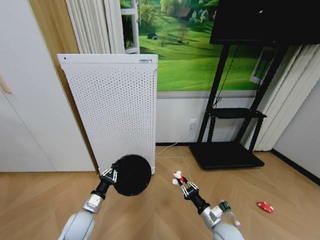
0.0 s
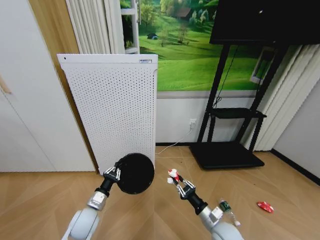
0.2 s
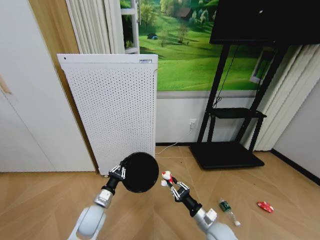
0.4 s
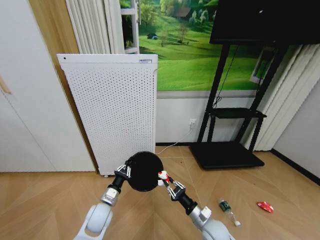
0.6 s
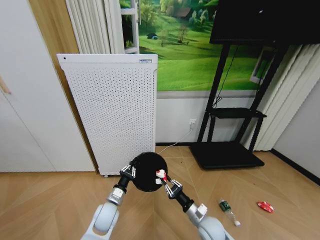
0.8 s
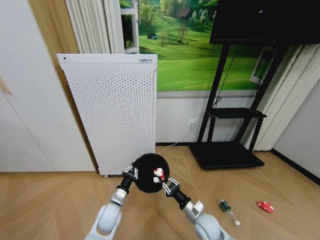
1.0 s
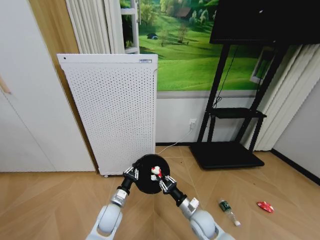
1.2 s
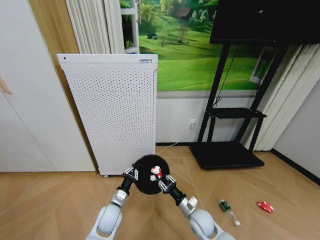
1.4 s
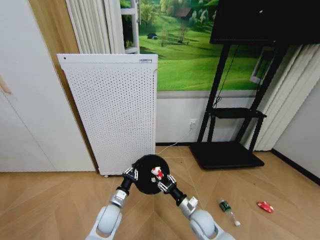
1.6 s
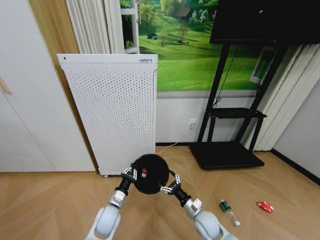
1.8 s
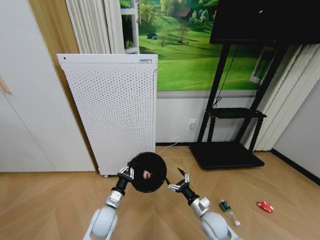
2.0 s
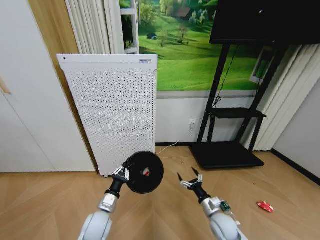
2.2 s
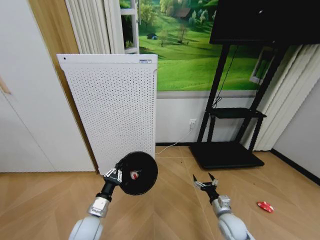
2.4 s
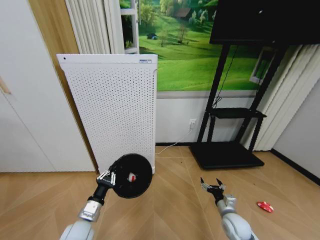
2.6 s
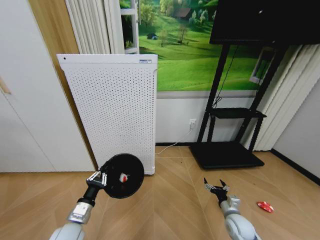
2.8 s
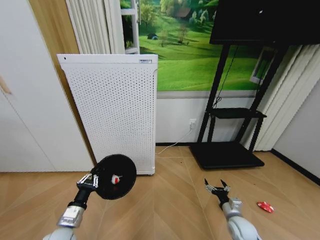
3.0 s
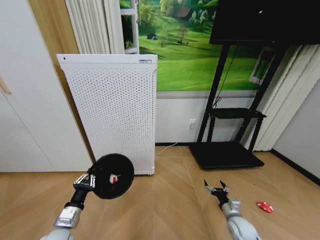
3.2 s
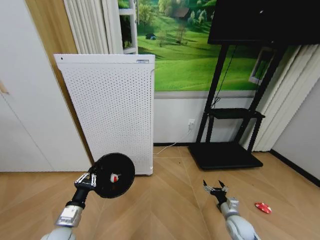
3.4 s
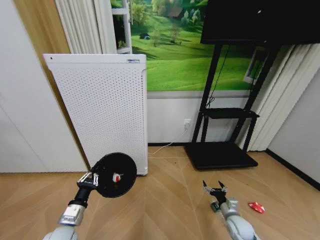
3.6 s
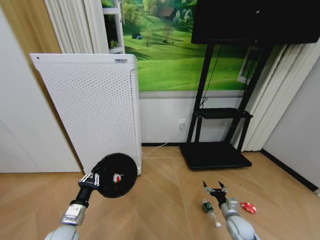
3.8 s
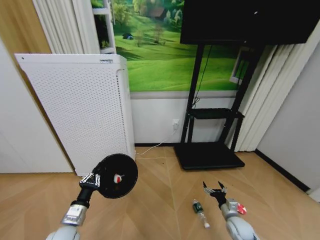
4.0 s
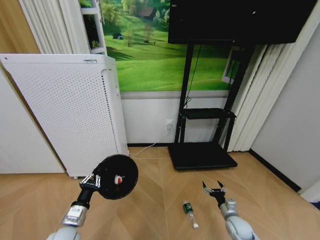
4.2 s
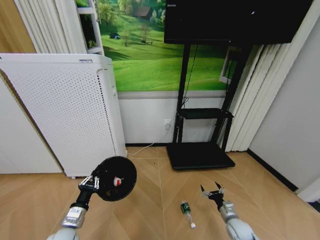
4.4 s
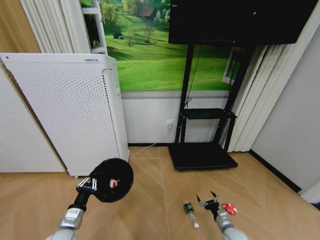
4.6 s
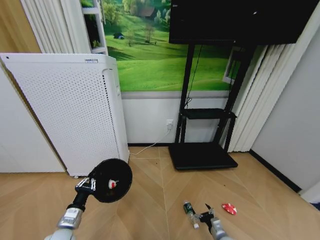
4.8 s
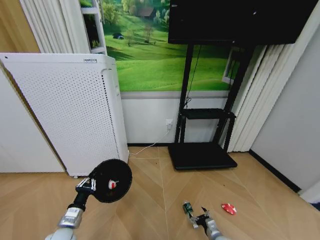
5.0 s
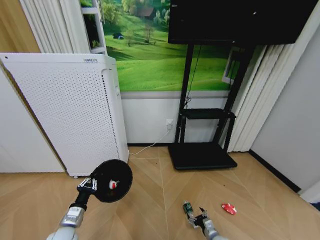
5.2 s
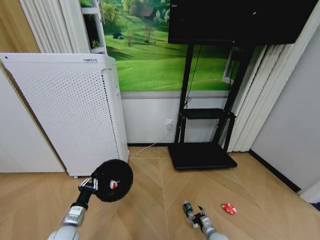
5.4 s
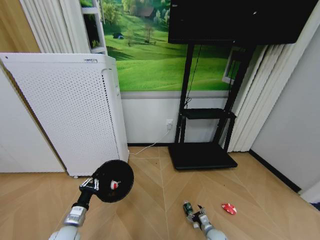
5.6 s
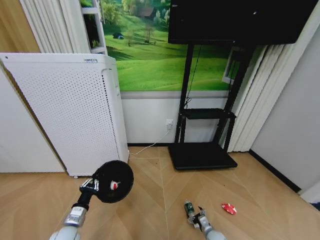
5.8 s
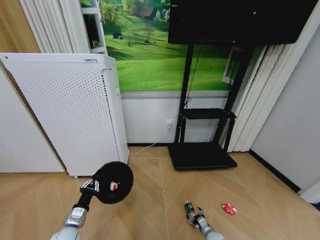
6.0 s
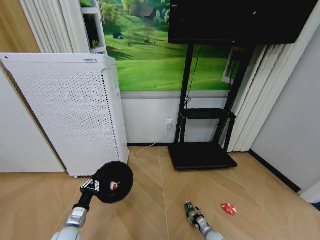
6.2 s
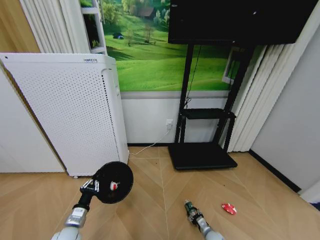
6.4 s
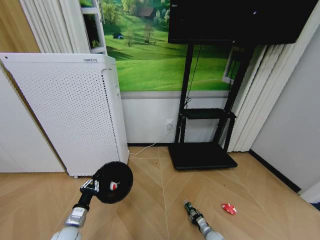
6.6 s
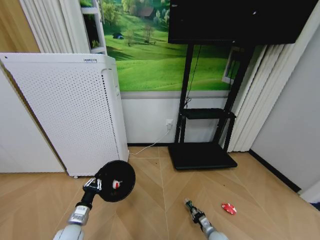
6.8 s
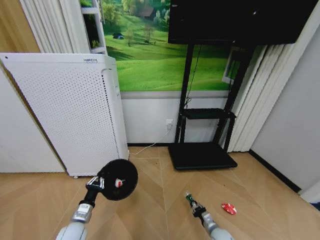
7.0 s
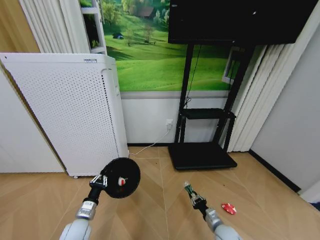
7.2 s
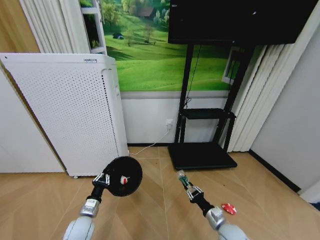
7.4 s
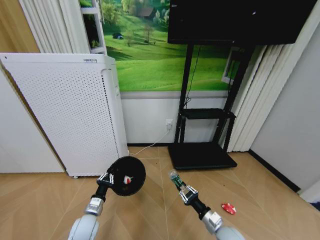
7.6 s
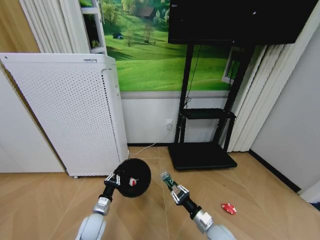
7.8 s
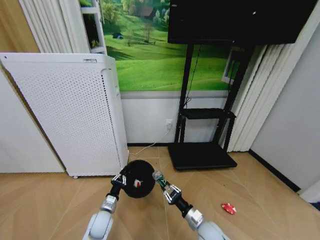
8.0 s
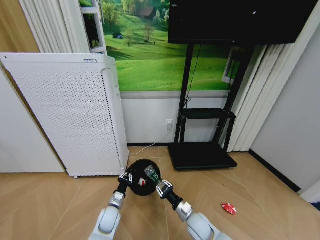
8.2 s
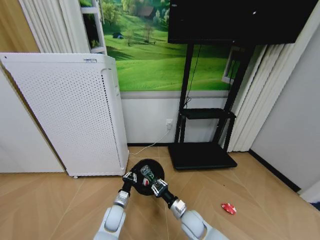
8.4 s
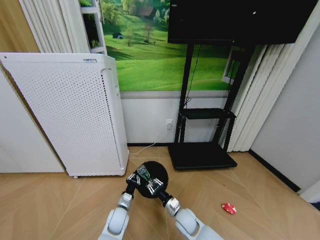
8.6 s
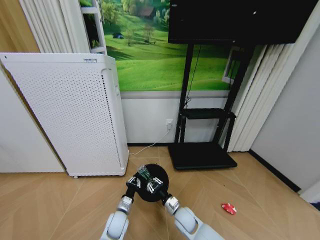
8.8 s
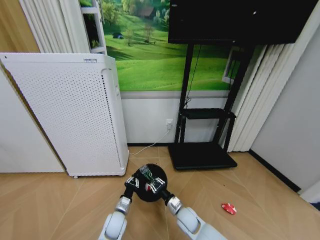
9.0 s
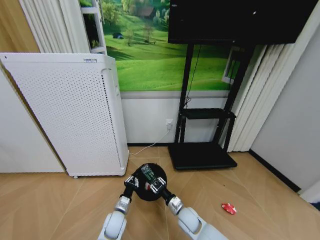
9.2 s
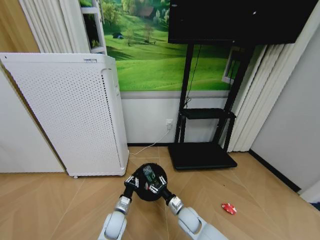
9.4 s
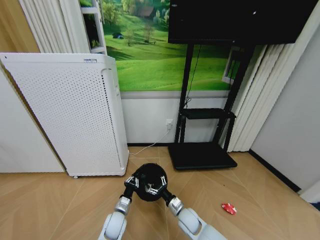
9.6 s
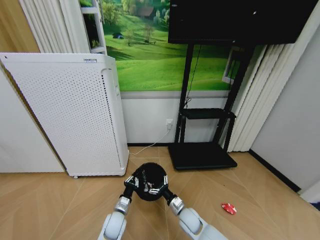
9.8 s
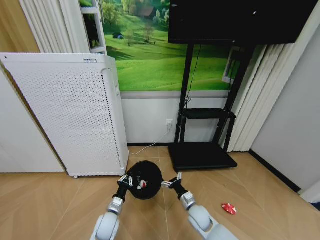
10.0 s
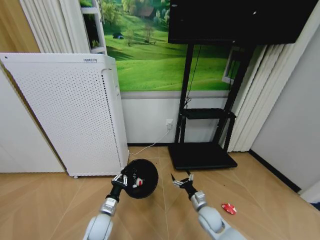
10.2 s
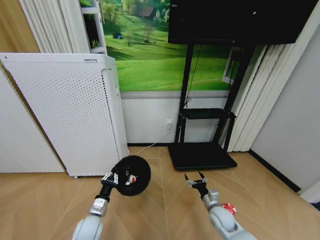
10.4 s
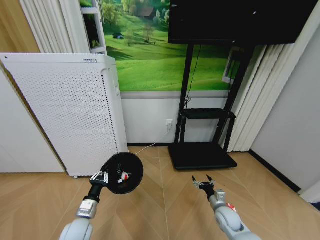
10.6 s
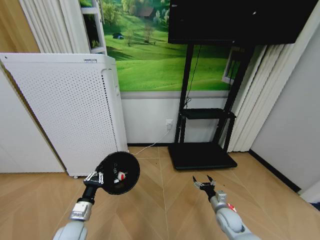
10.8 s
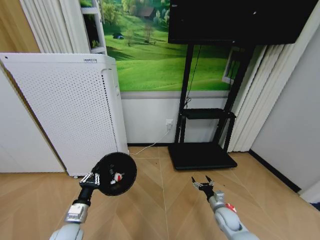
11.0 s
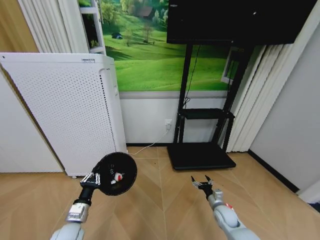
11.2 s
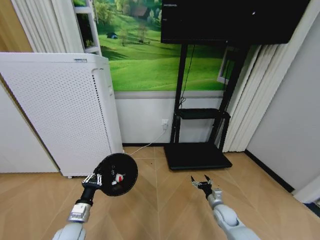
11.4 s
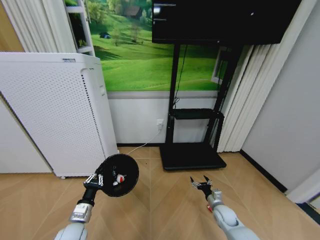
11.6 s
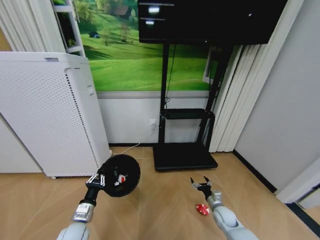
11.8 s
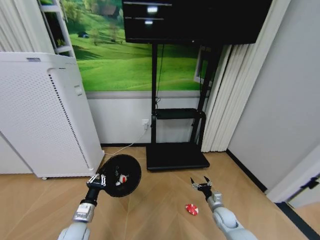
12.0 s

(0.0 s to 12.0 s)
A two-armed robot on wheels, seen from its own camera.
Task of the whole recording: Pick up the trash bin and place the garbage on the floor into it.
0.0 s - 1.6 s: The left gripper heads to the right, covering about 10 cm. Meanwhile the right gripper heads to the left and forward, covering about 10 cm.
1.6 s - 3.0 s: The right gripper heads to the right, covering some 15 cm, and opens its fingers. The left gripper heads to the left, backward and upward, covering roughly 15 cm.
3.0 s - 4.4 s: The right gripper travels downward by approximately 5 cm.
4.4 s - 6.0 s: The right gripper moves downward and to the left, roughly 15 cm.
6.0 s - 7.6 s: The right gripper moves upward, about 20 cm, and closes up; the left gripper shifts roughly 5 cm to the right.
7.6 s - 9.0 s: The left gripper goes some 10 cm to the right and downward. The right gripper moves to the left and forward, about 15 cm.
9.0 s - 10.4 s: The right gripper moves to the right, roughly 15 cm, and opens, while the left gripper goes some 10 cm to the left and upward.
10.4 s - 12.0 s: The right gripper goes about 5 cm downward.

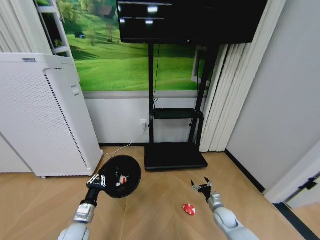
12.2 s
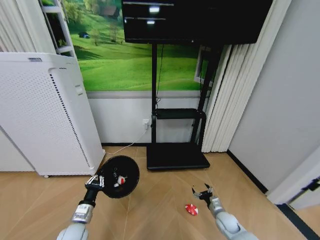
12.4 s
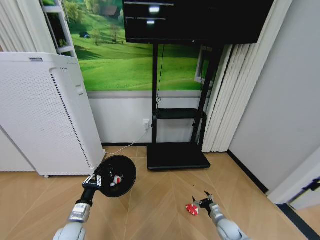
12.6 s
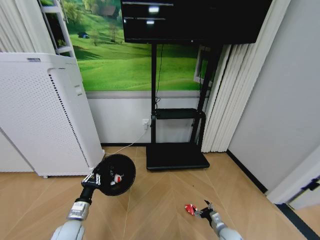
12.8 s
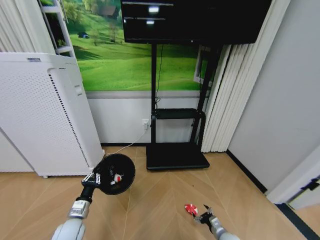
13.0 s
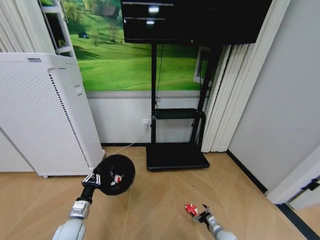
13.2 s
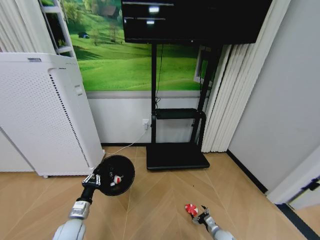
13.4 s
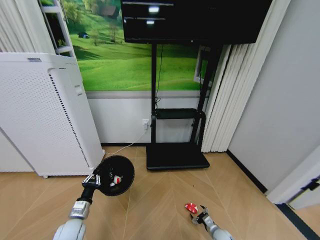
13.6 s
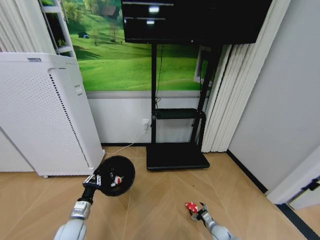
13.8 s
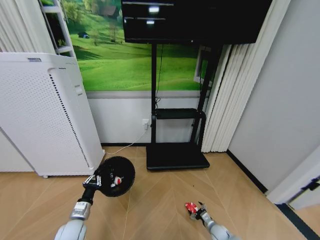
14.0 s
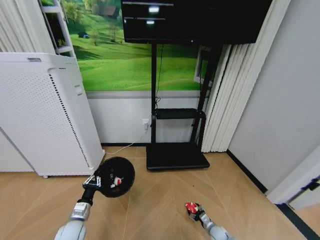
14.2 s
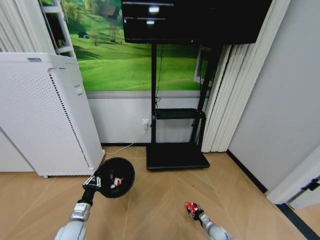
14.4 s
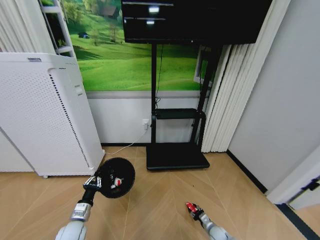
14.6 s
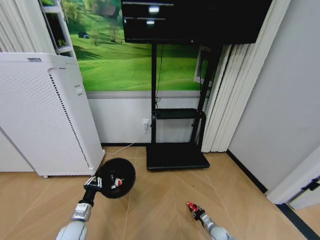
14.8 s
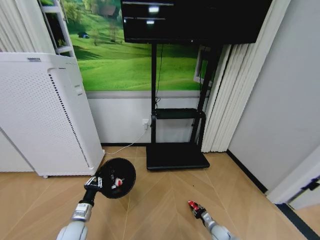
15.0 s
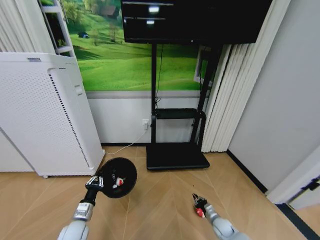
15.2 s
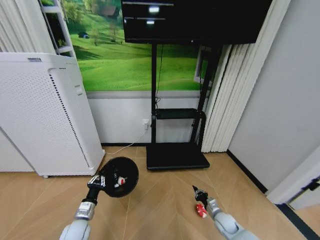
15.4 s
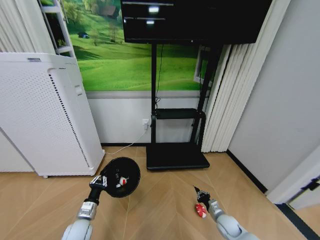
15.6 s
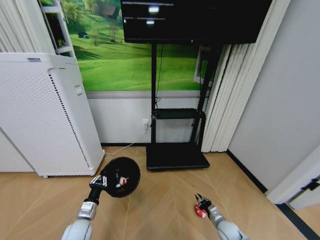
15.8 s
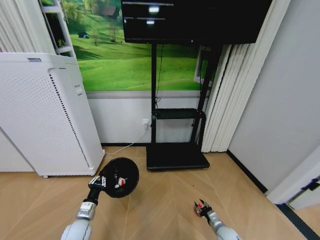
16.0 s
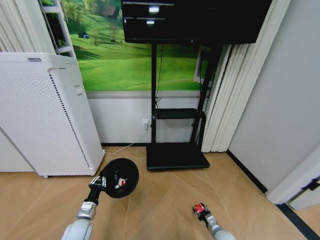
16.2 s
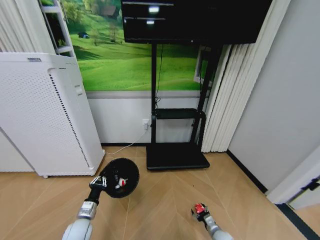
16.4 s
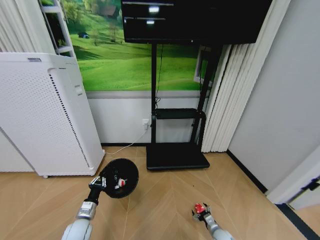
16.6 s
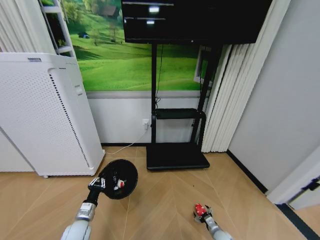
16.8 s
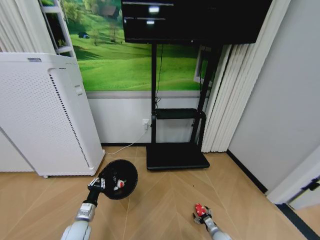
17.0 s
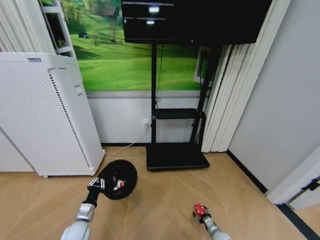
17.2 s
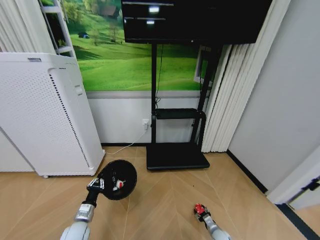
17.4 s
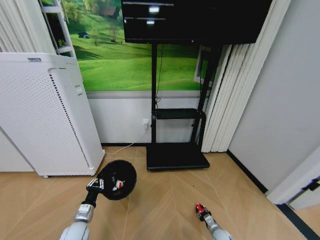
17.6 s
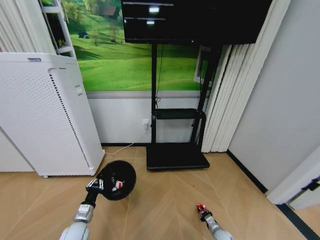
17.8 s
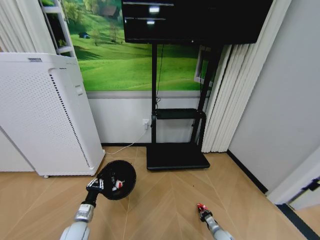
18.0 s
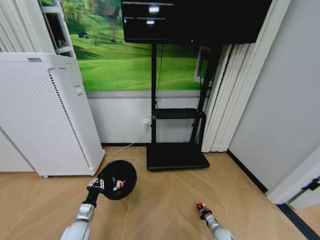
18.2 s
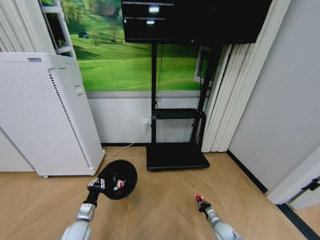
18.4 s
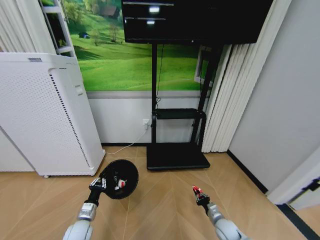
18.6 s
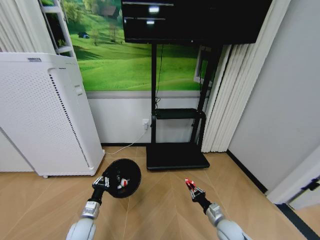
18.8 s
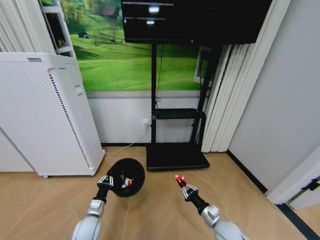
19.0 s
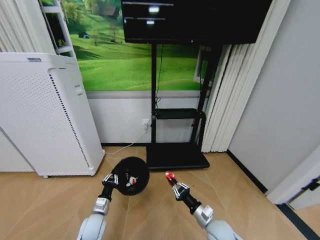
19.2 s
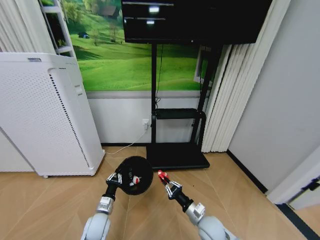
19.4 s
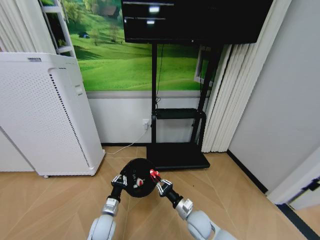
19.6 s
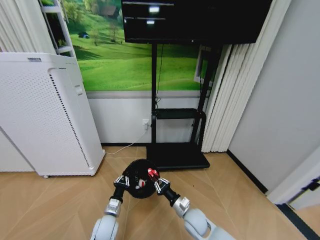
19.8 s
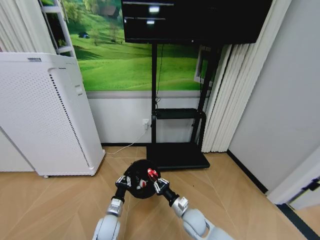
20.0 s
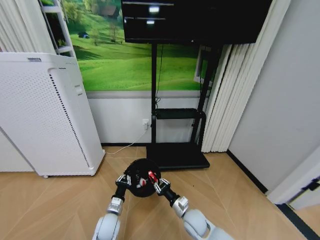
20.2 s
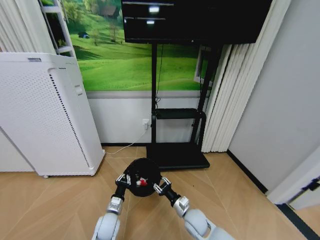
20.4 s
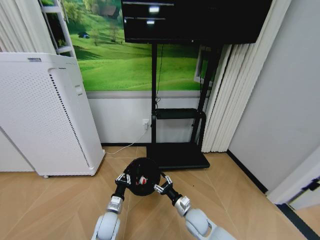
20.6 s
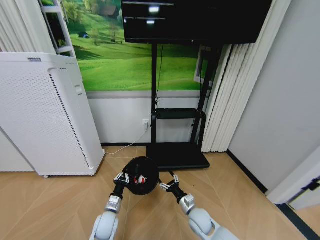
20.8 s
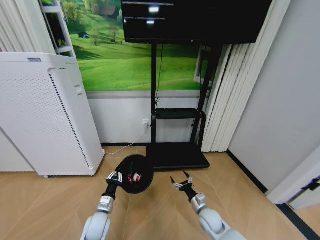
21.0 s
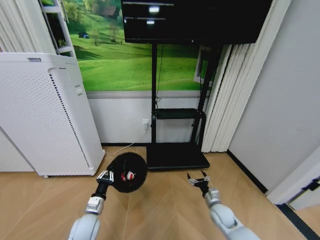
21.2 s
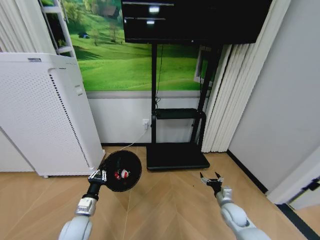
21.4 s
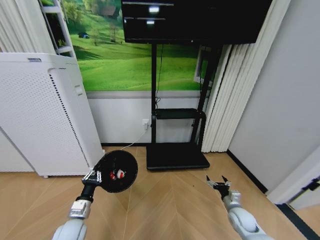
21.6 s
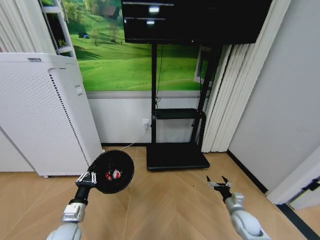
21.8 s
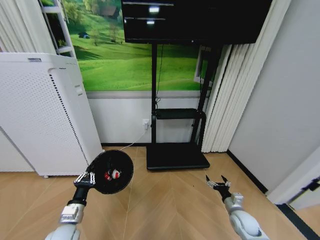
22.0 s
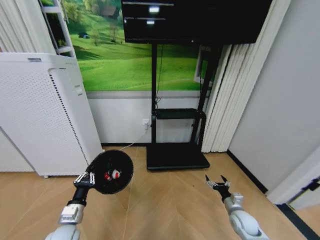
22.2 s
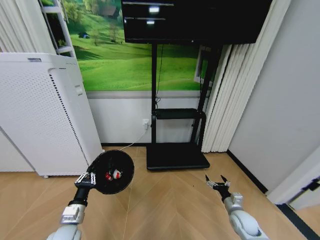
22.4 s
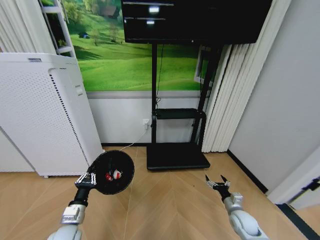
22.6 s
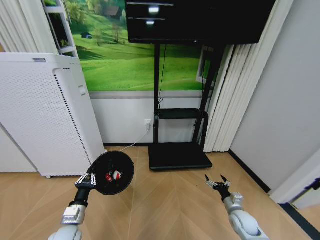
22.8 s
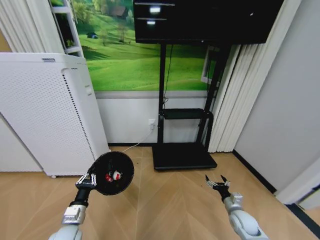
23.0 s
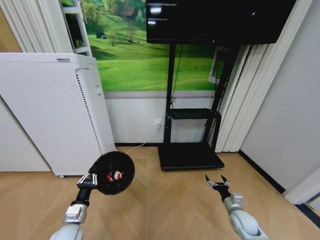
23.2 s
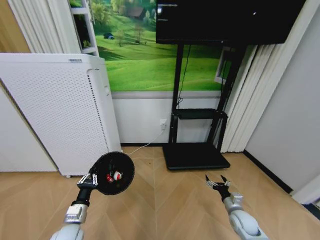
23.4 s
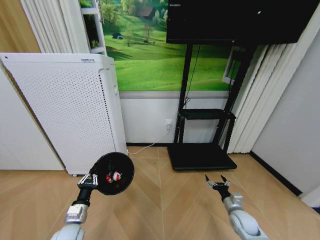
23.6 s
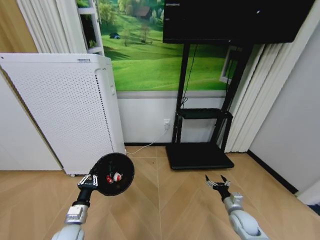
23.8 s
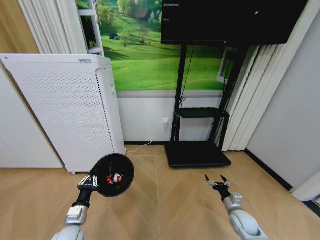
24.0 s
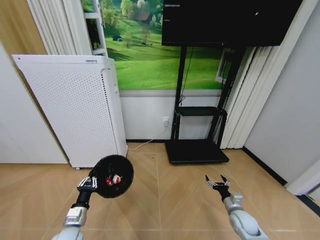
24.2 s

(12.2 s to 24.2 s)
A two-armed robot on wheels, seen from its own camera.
Task of the whole recording: Pick up the trash bin and place the garbage on the floor into it.
12.2 s - 13.8 s: The right gripper moves downward, approximately 10 cm.
13.8 s - 15.2 s: The right gripper closes.
15.2 s - 16.6 s: The right gripper reaches about 5 cm upward, then returns, and opens up.
16.6 s - 18.2 s: The right gripper closes up.
18.2 s - 19.8 s: The right gripper shifts approximately 30 cm upward and to the left. The left gripper shifts approximately 10 cm to the right.
19.8 s - 21.2 s: The right gripper moves to the right, approximately 15 cm, and opens. The left gripper travels to the left by some 5 cm.
21.2 s - 22.6 s: The left gripper moves about 10 cm. Meanwhile the right gripper shifts roughly 10 cm to the right.
